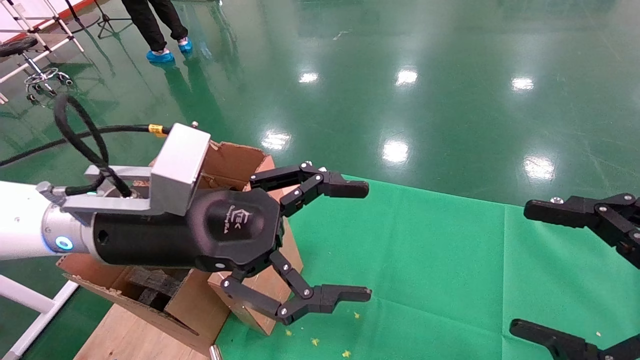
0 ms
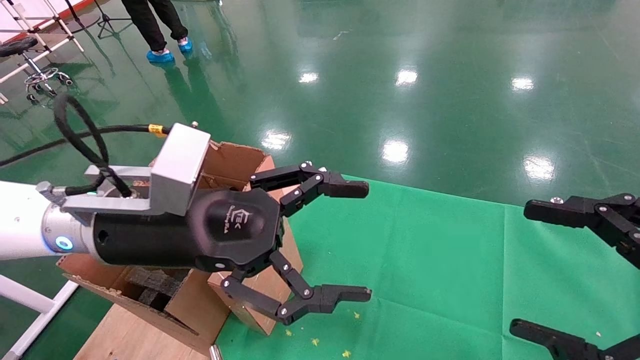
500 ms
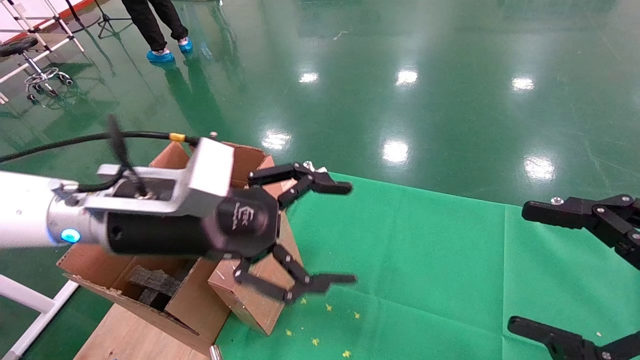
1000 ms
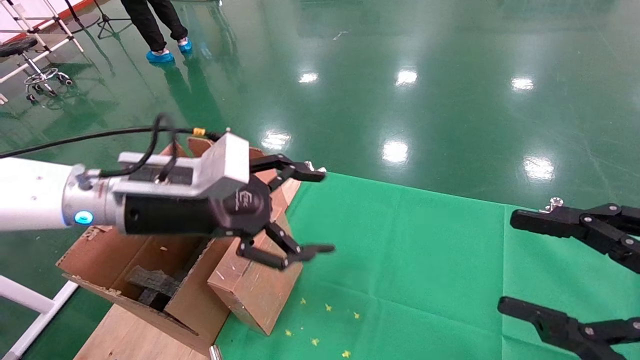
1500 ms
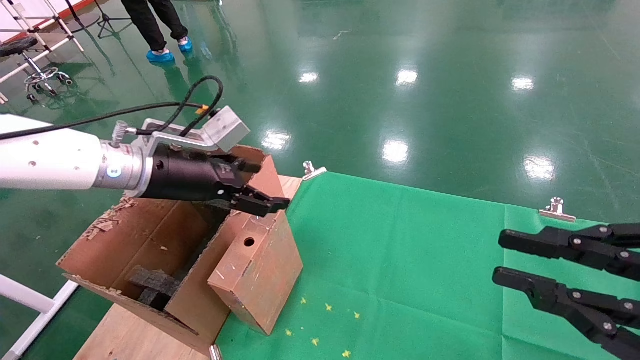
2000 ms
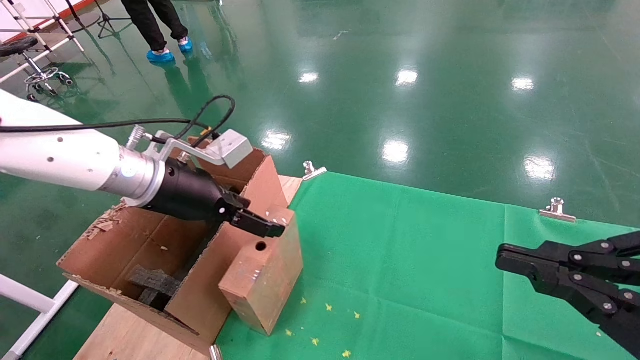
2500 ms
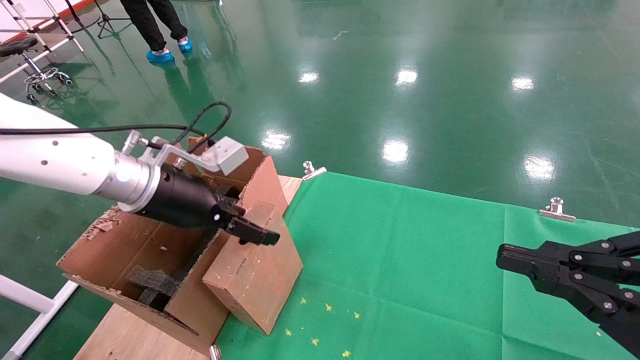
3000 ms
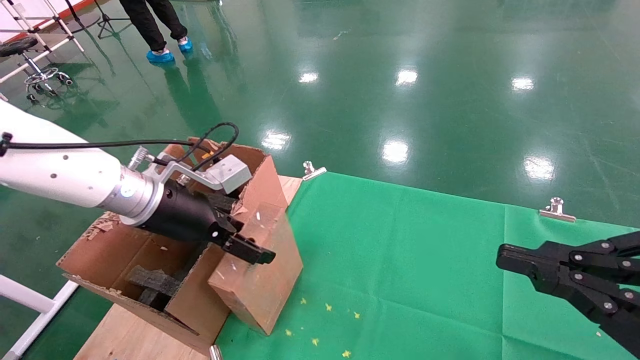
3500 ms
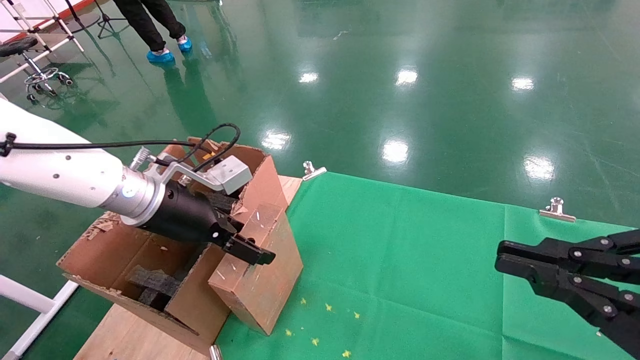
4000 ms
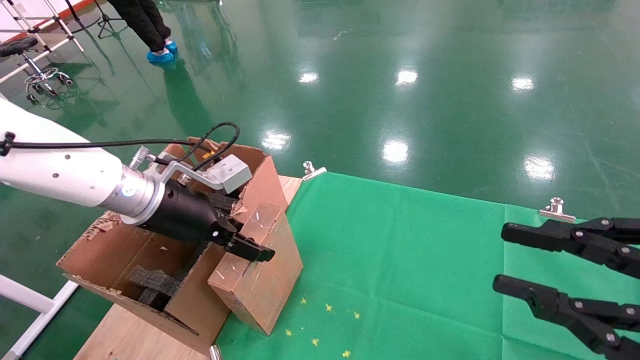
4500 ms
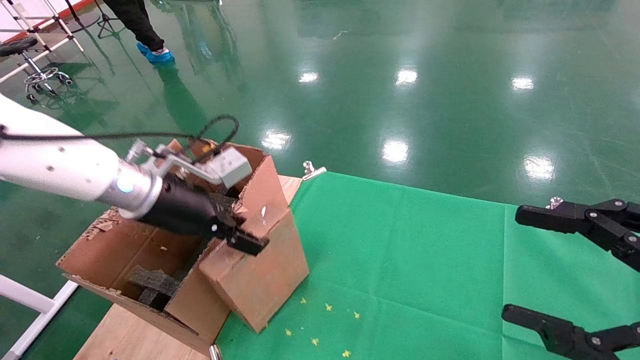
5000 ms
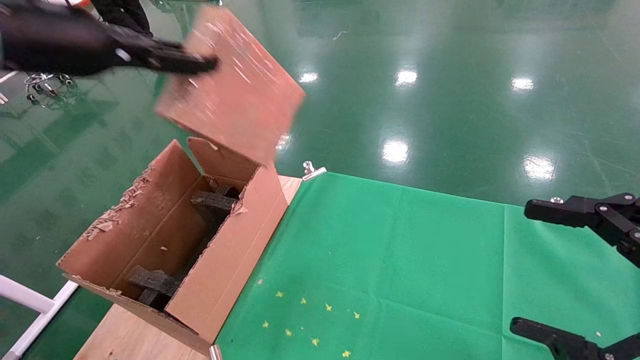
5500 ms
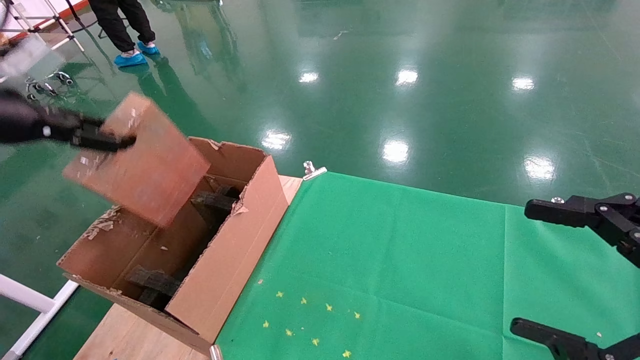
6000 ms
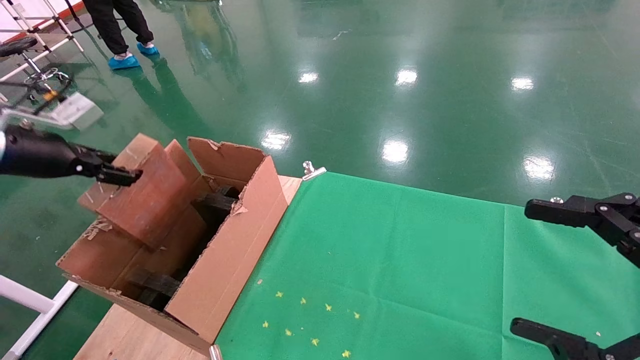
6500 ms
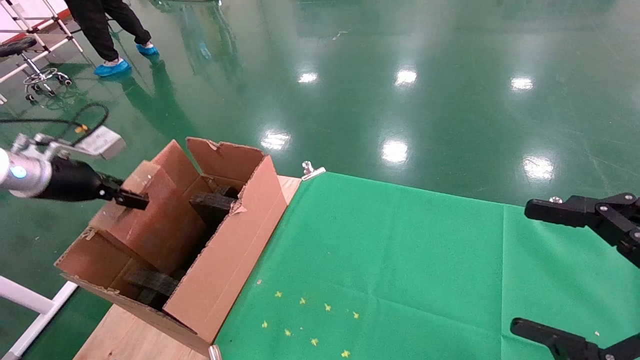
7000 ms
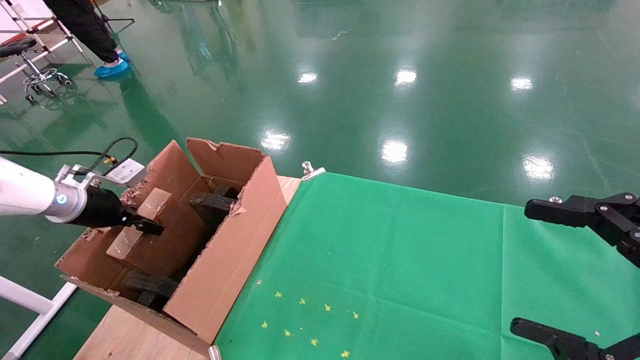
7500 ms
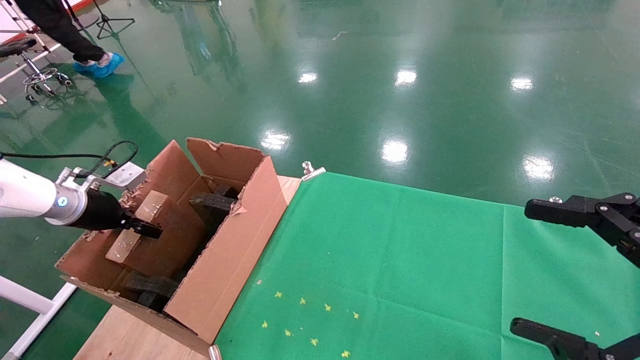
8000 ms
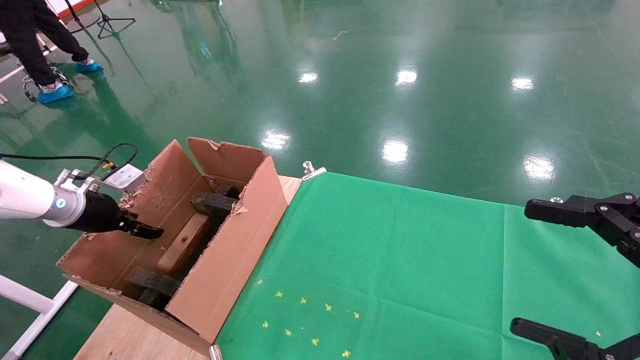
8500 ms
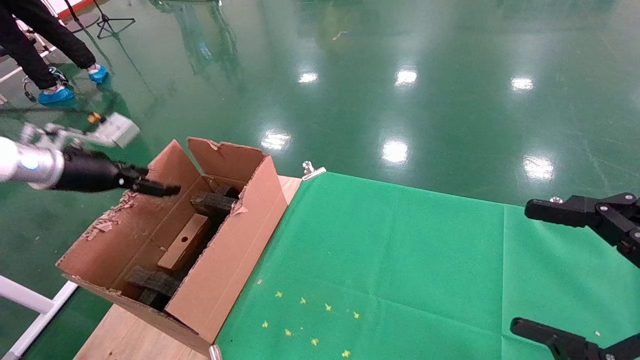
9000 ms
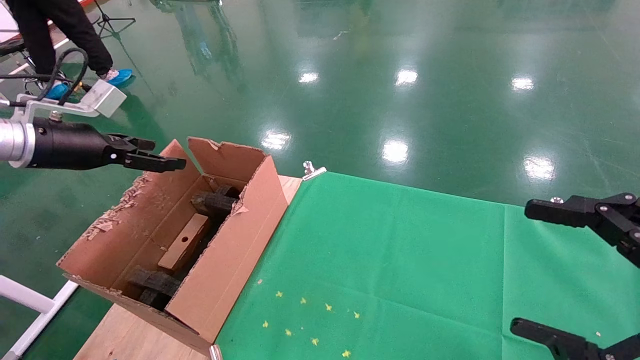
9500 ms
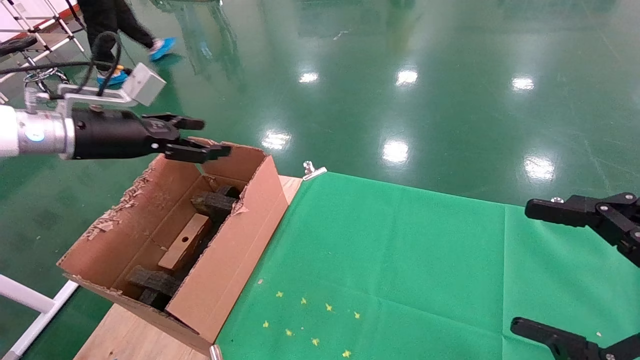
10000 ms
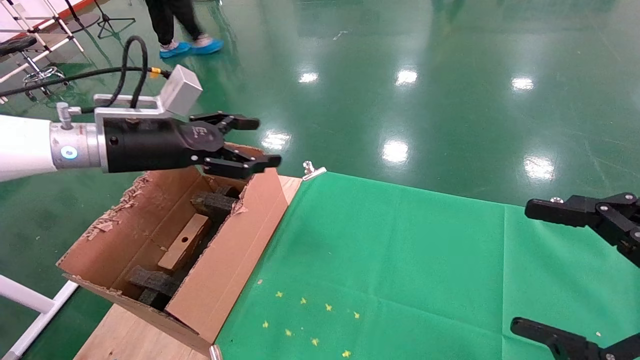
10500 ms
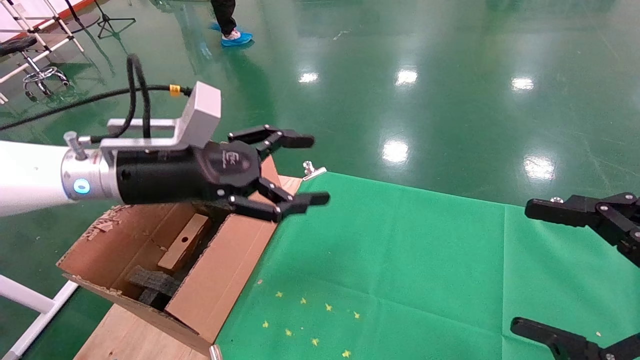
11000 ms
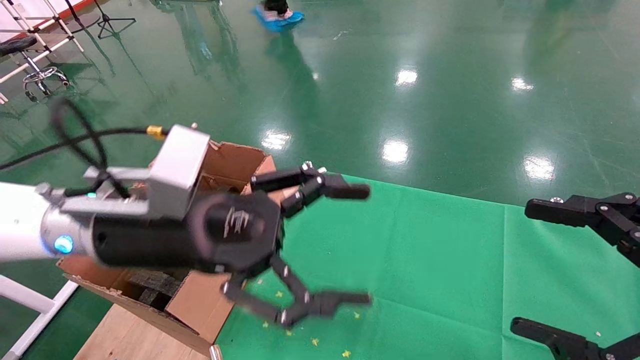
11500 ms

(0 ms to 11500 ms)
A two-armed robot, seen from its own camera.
Task of the whole recording: using a robotic arm to pick up a cardboard box and palace it the carton.
Step, 1000 ms - 5000 ms: Pick up the mouse and the power cord paper box.
Step, 5500 ms - 9500 ms: Place the mouse and the power cord paper box into the container.
0 ms - 2000 ms: The left gripper moves forward and to the left, approximately 10 cm. Meanwhile the right gripper closes up.
2000 ms - 4000 ms: There are only small adjustments of the grippers.
4000 ms - 6000 ms: The left gripper shifts some 25 cm to the left and upward, and closes up, while the right gripper opens its fingers.
6000 ms - 7500 ms: The left gripper is displaced downward and forward by roughly 20 cm.
7500 ms - 9500 ms: The left gripper is displaced upward by some 10 cm, and opens its fingers.
9500 ms - 11500 ms: The left gripper shifts about 25 cm to the right.

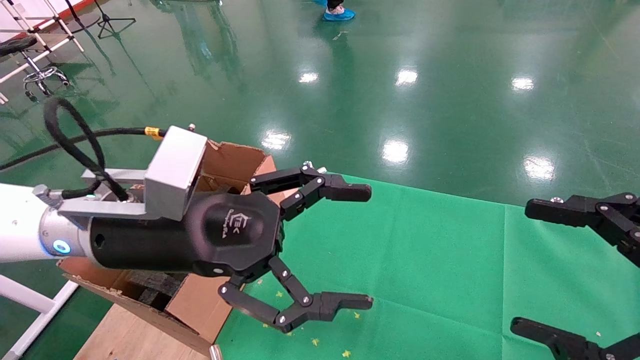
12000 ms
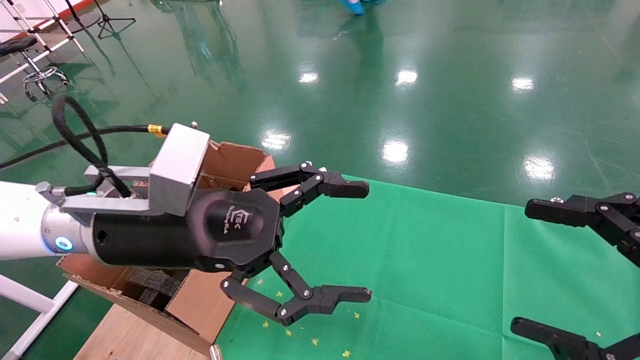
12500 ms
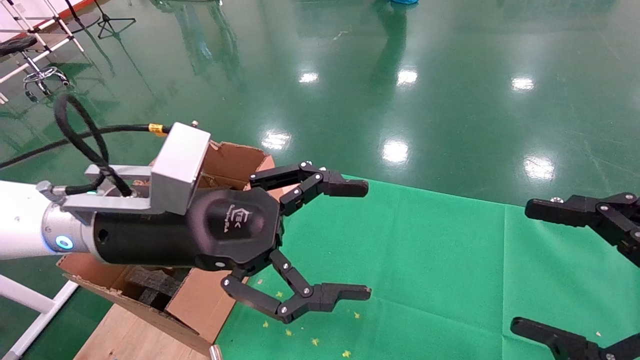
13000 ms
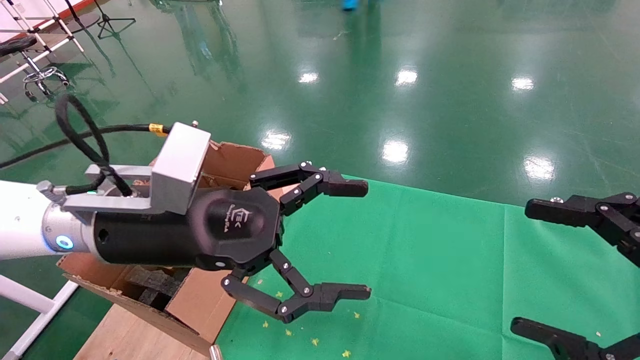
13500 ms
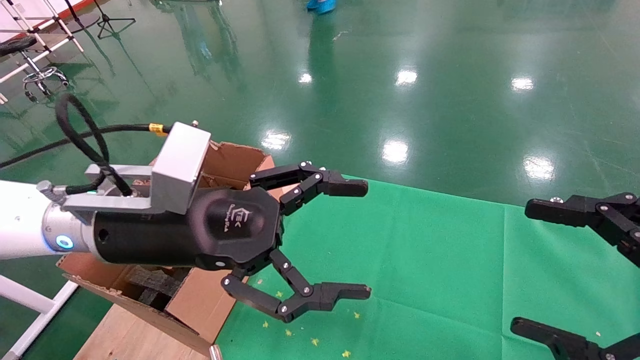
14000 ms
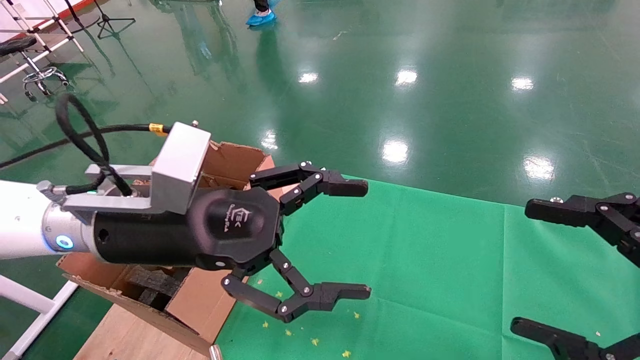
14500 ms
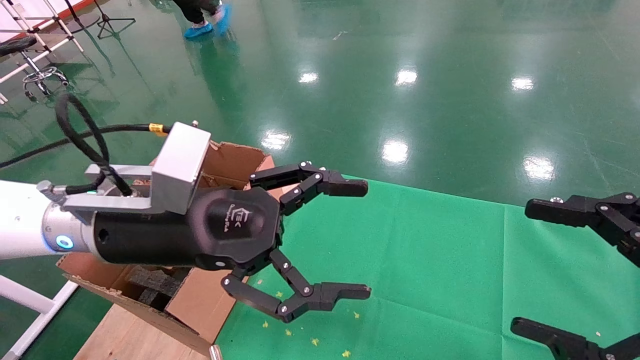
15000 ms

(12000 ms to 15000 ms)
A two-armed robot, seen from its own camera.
Task of the whole recording: using a robotic arm to pick up a cardboard box and palace it the carton.
12000 ms - 15000 ms: The two grippers keep their place.

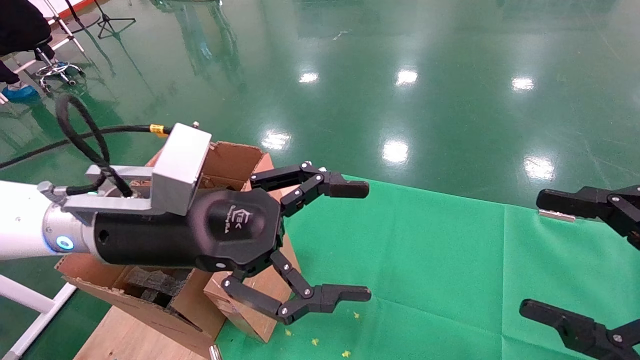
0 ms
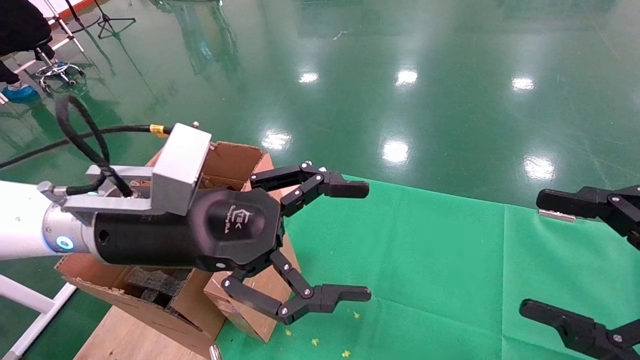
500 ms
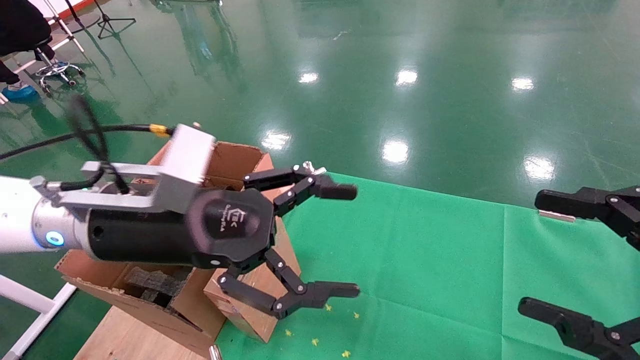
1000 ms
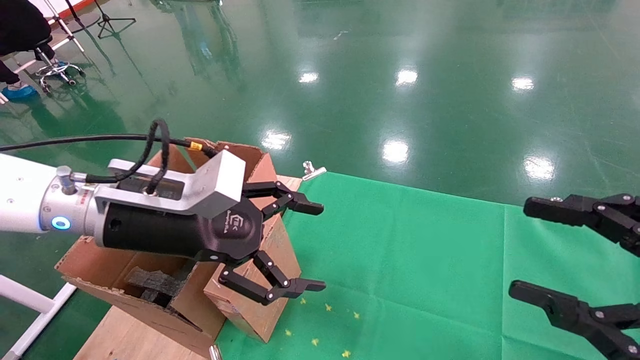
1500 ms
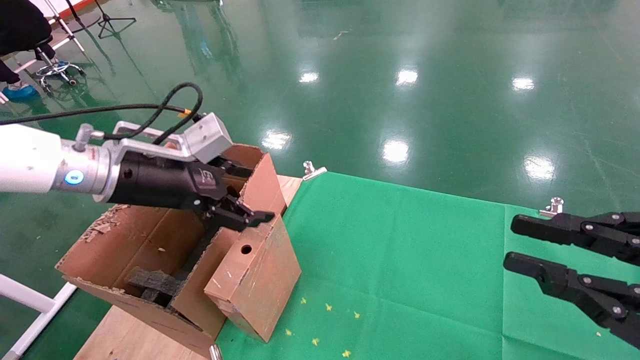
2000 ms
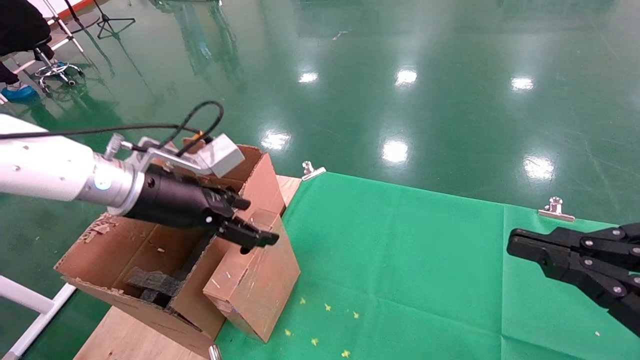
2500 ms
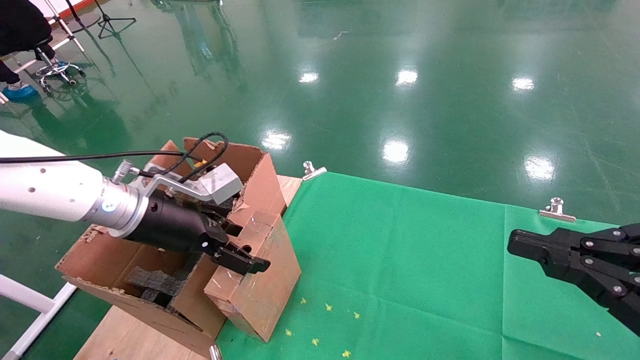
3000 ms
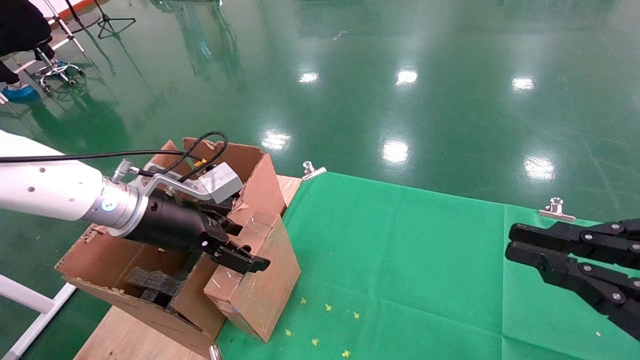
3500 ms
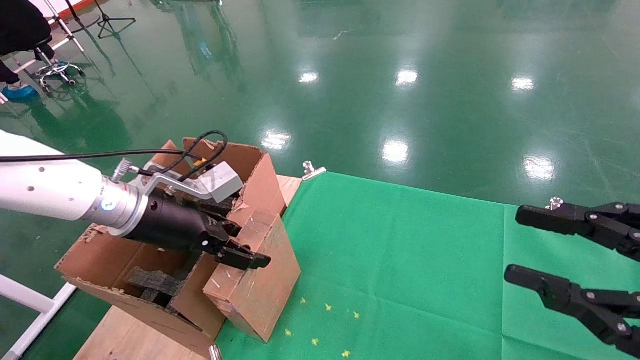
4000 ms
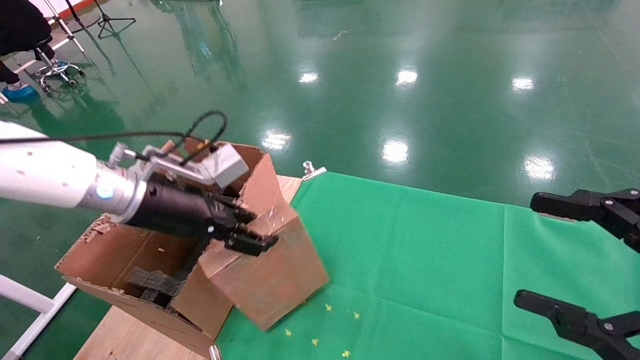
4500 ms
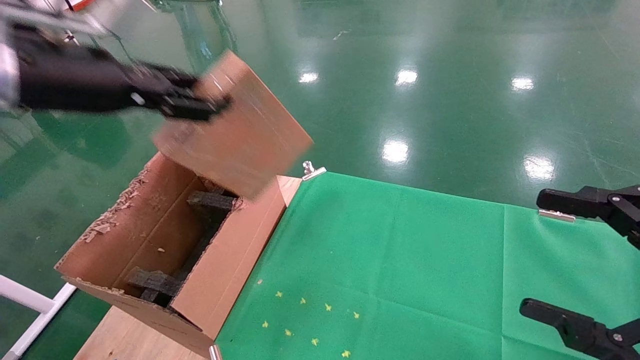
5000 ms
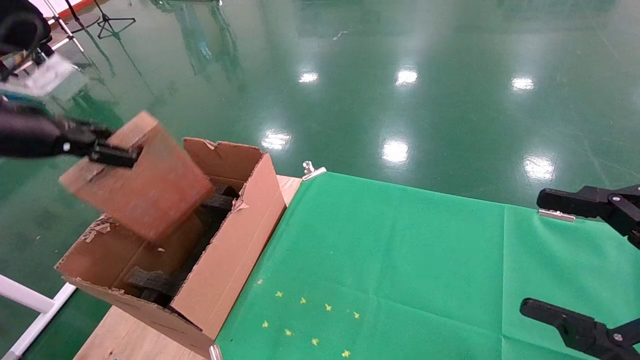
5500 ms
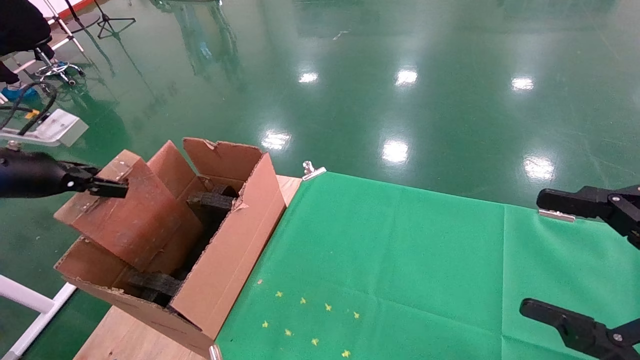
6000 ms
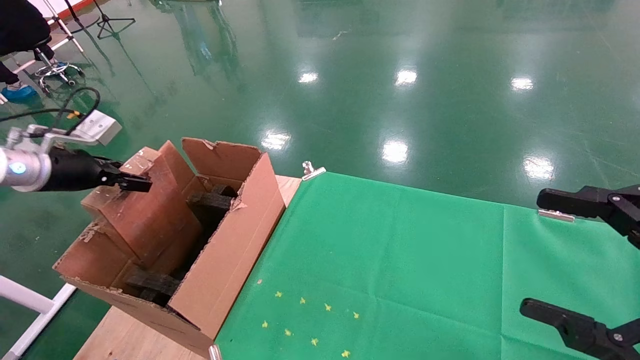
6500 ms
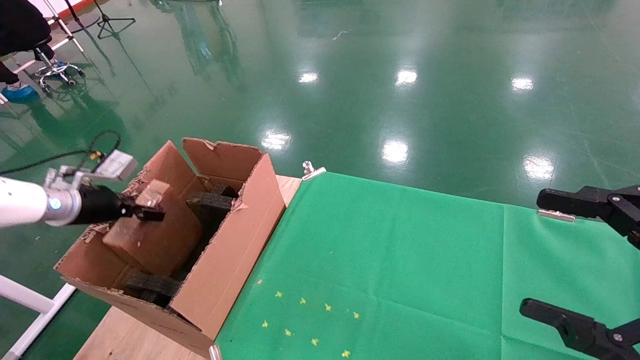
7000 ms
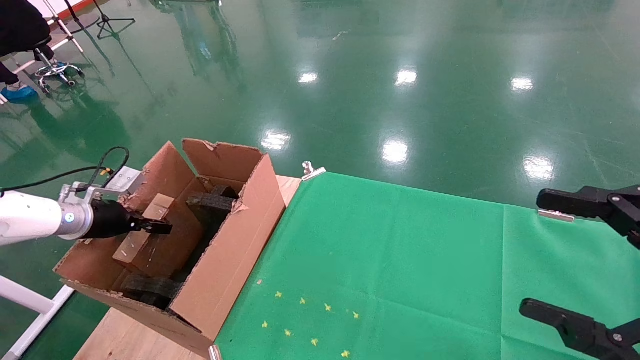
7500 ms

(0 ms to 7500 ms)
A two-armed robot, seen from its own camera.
Task of the whole recording: using a robotic arm to pick up a cardboard box and palace it the carton.
Step, 1500 ms - 4500 ms: Pick up the mouse and the power cord paper box.
0 ms - 2000 ms: The right gripper closes. The left gripper shifts approximately 10 cm to the left and forward.
4000 ms - 5500 ms: The right gripper opens its fingers, while the left gripper shifts some 20 cm to the left and upward, and closes.
5500 ms - 7500 ms: The left gripper goes roughly 25 cm downward and forward.
